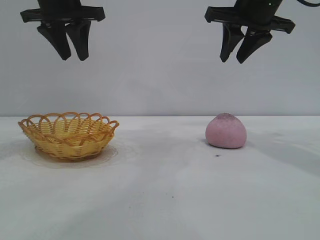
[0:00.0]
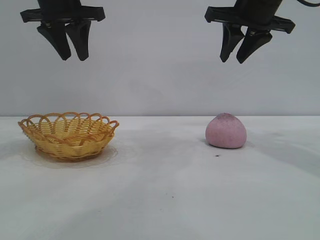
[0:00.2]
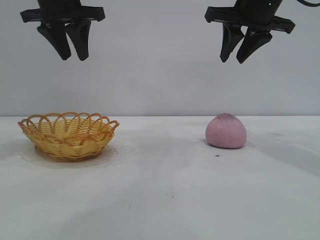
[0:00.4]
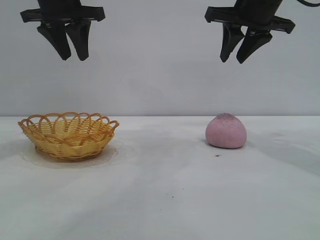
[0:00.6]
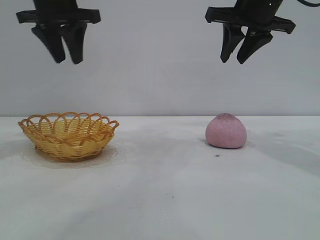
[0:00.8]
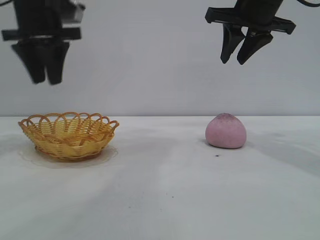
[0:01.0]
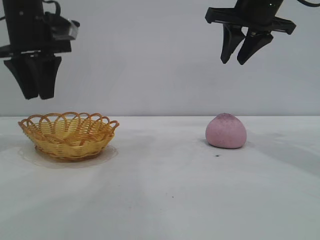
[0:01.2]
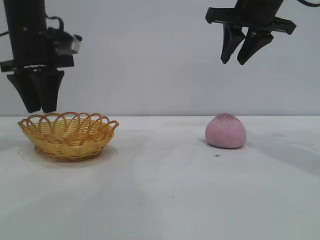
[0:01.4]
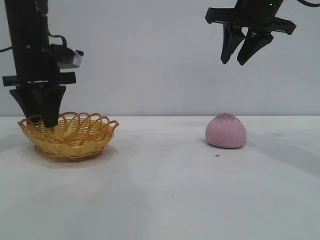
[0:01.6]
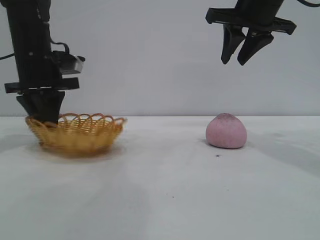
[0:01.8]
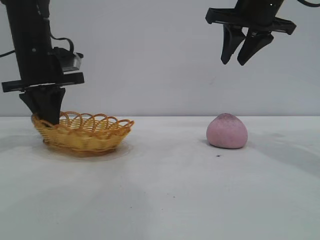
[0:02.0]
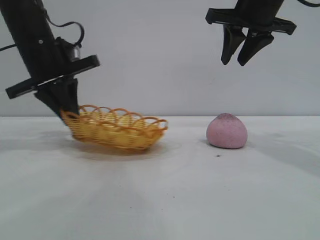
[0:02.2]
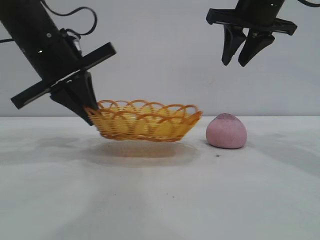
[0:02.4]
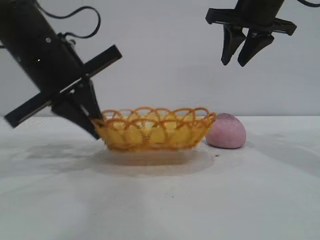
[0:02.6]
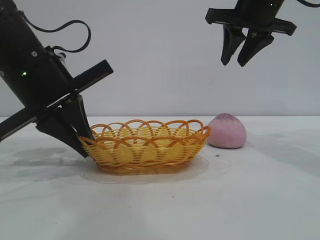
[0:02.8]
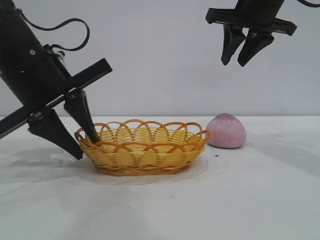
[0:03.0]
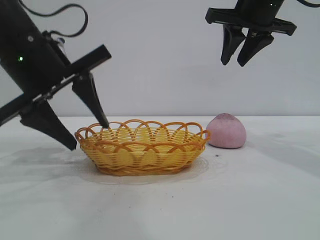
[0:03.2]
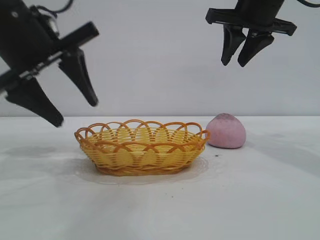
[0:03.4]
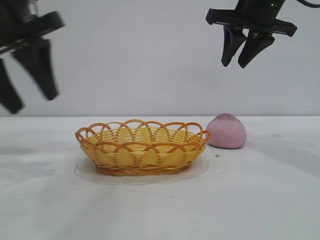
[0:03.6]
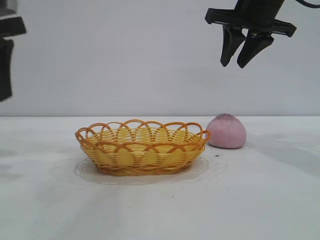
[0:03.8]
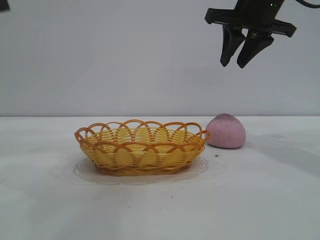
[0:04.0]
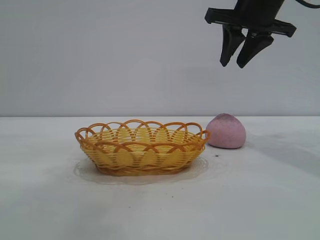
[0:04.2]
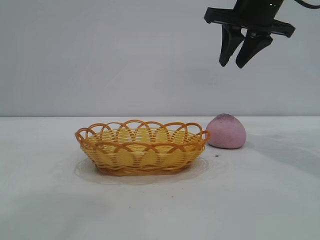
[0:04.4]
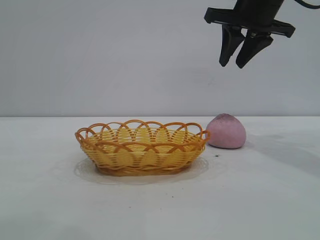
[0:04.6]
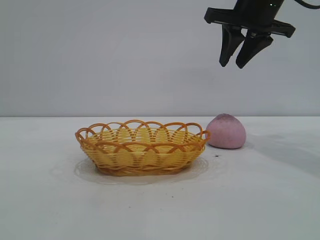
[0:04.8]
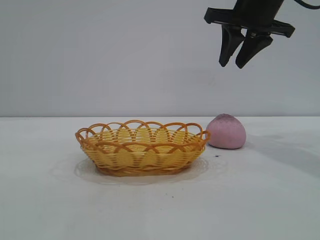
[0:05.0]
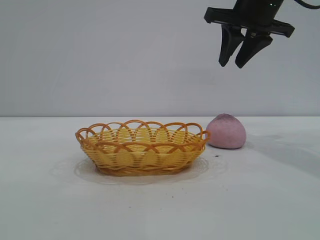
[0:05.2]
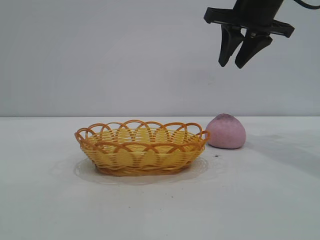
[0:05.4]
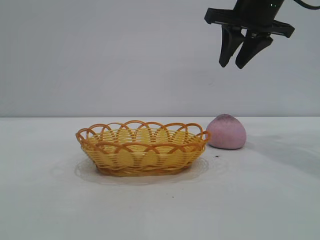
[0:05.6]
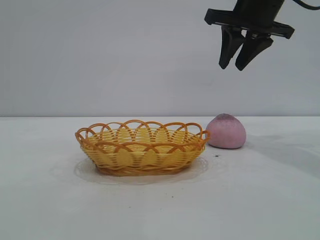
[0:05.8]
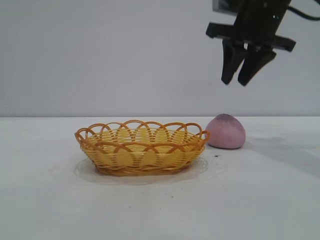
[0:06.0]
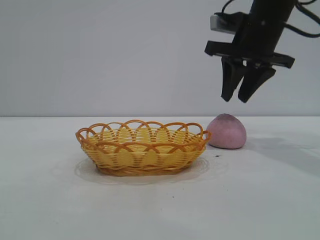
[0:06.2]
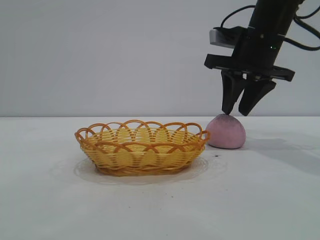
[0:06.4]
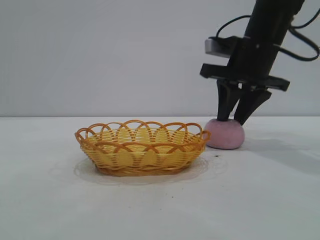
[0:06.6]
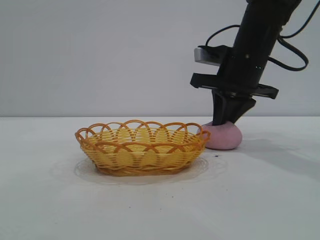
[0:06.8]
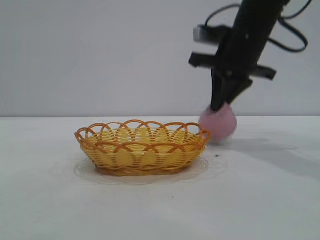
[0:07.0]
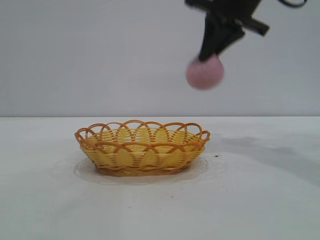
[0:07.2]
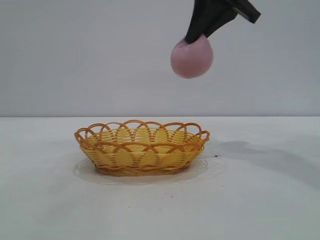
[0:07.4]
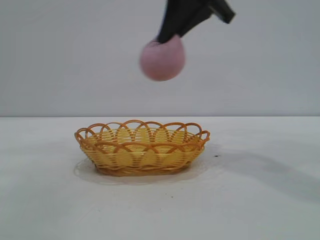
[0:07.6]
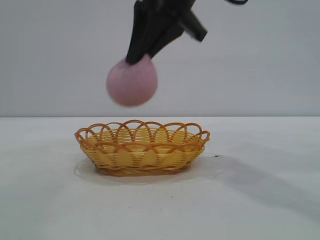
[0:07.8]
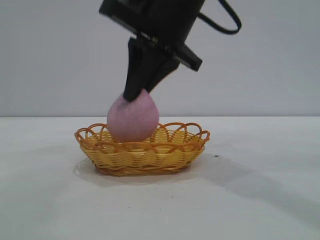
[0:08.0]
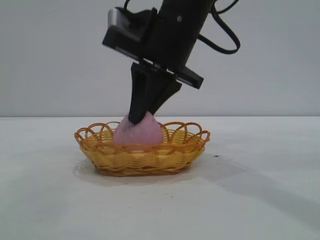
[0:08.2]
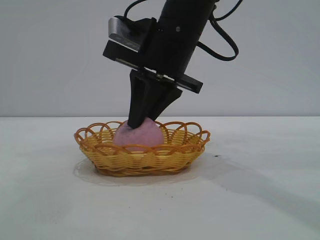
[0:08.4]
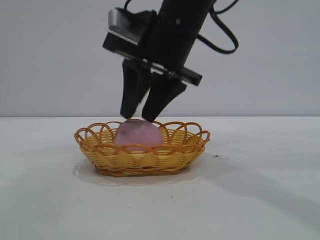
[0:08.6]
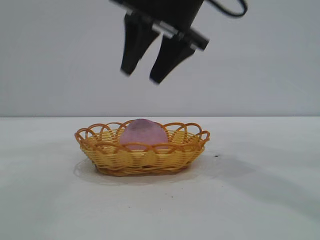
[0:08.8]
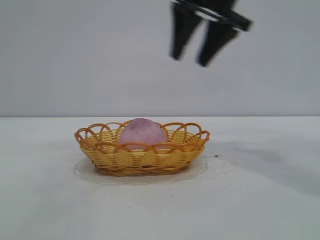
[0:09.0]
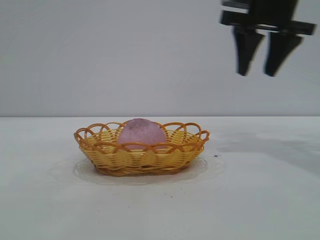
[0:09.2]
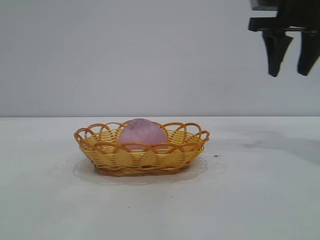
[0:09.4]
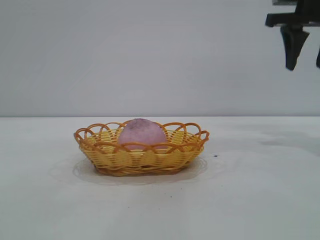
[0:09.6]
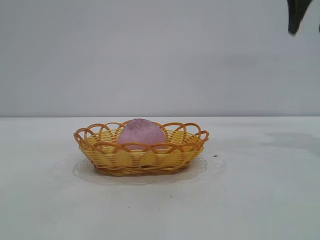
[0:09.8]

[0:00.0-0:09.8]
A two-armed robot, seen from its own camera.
Task of the whole recording: pick up the peach and put it into the basket.
Step, 0:00.0 to 0:03.4: Move the basket to the center of view.
Step, 0:03.6 to 0:07.0: Pick up the peach.
Step, 0:07.2 to 0:08.6: place the peach into the basket.
